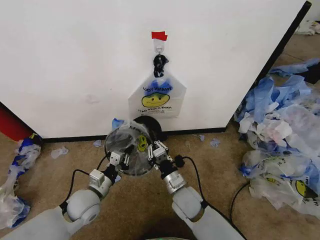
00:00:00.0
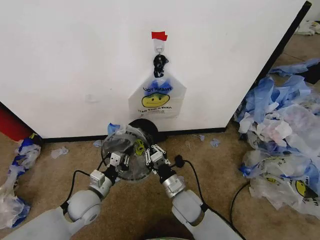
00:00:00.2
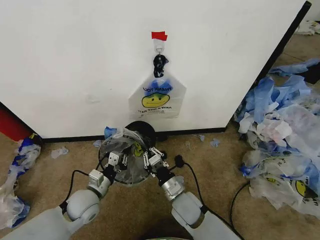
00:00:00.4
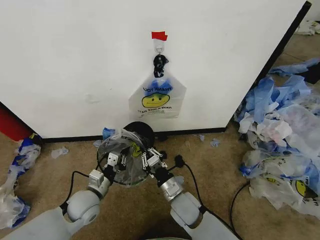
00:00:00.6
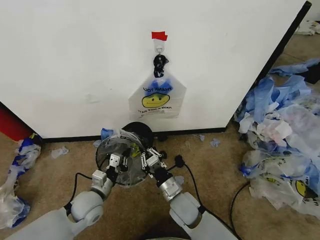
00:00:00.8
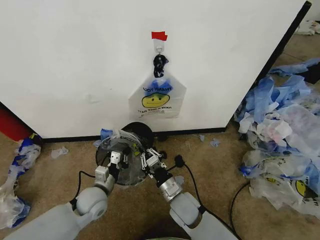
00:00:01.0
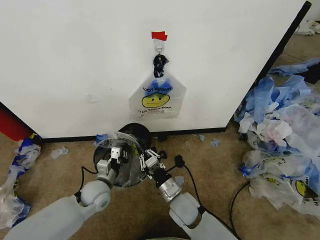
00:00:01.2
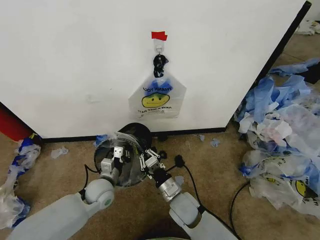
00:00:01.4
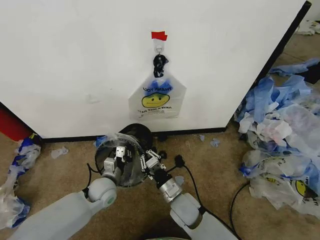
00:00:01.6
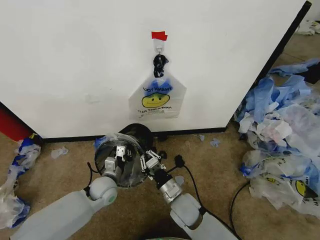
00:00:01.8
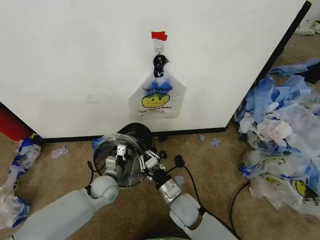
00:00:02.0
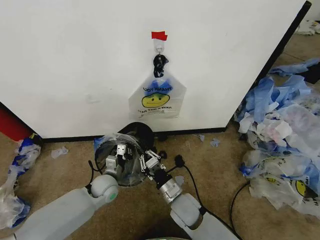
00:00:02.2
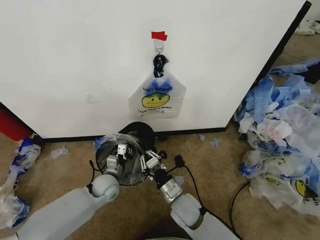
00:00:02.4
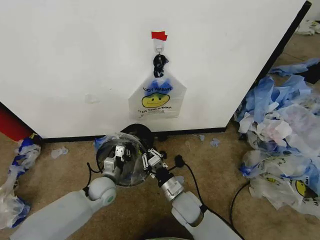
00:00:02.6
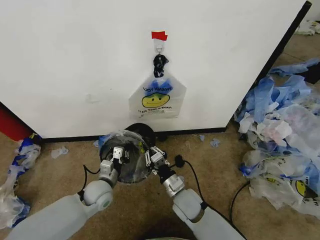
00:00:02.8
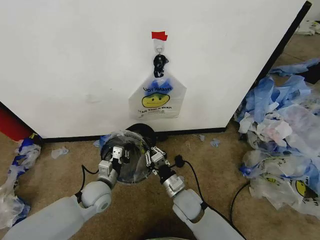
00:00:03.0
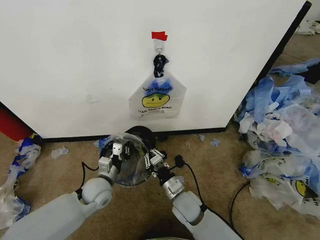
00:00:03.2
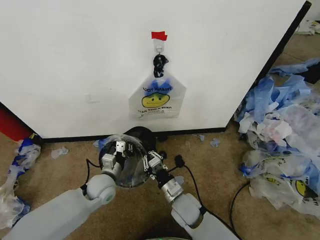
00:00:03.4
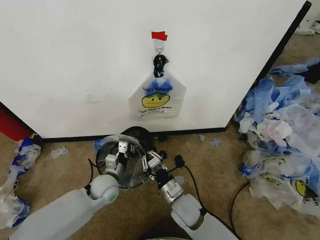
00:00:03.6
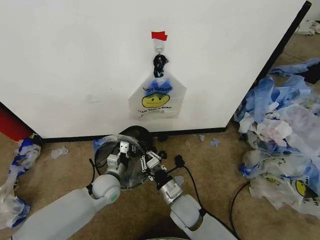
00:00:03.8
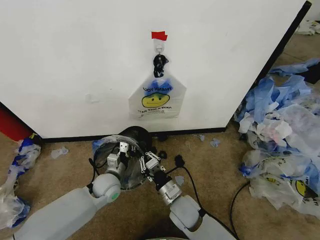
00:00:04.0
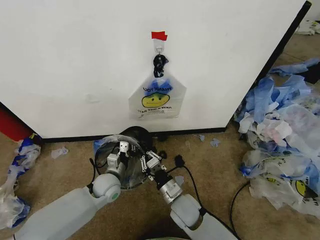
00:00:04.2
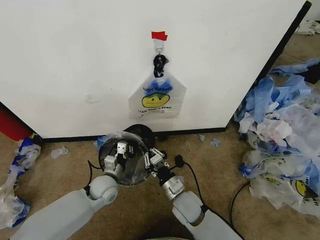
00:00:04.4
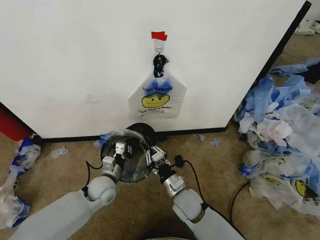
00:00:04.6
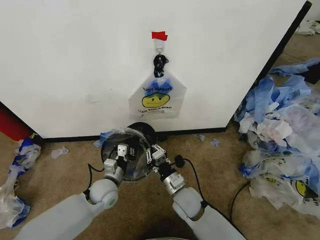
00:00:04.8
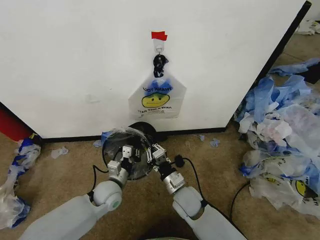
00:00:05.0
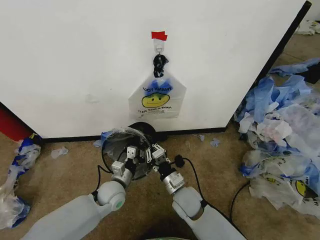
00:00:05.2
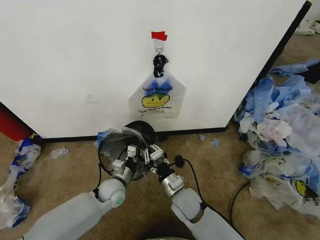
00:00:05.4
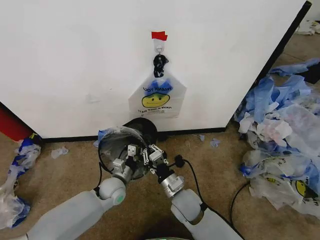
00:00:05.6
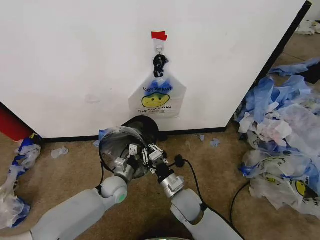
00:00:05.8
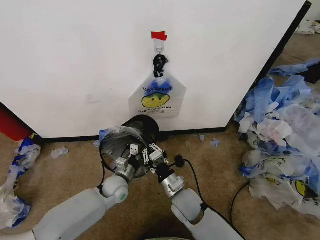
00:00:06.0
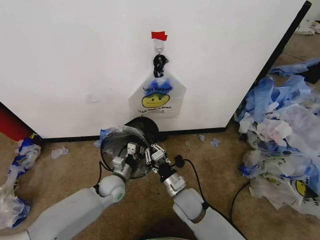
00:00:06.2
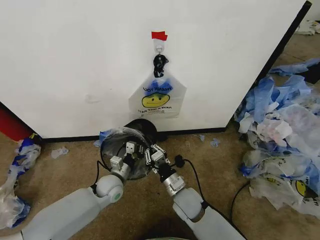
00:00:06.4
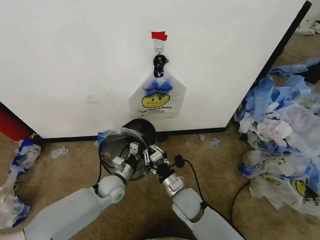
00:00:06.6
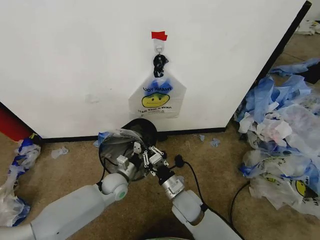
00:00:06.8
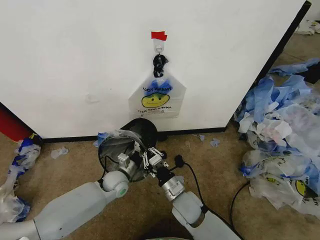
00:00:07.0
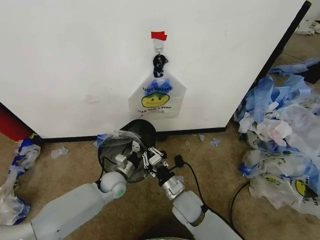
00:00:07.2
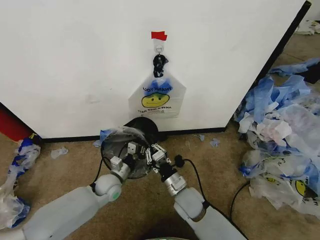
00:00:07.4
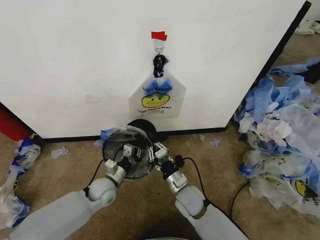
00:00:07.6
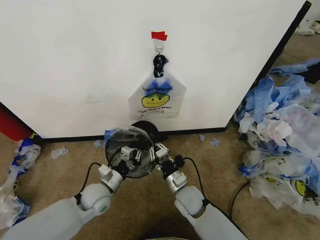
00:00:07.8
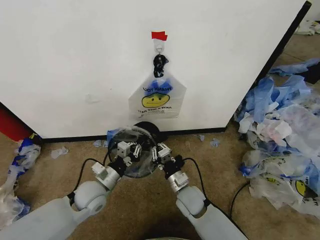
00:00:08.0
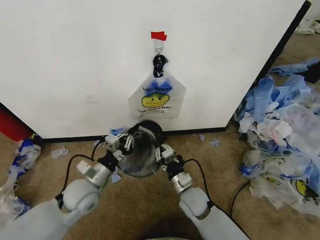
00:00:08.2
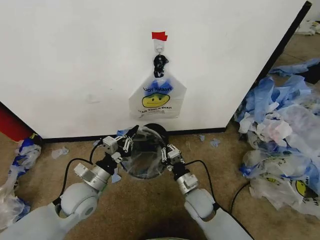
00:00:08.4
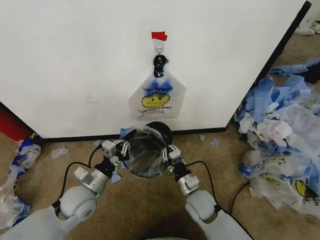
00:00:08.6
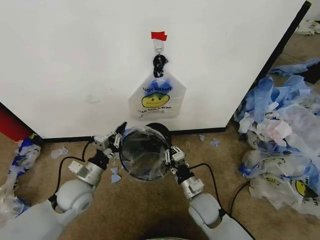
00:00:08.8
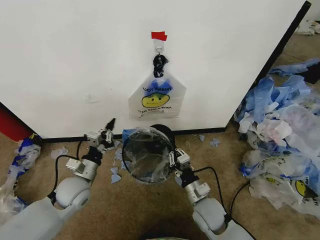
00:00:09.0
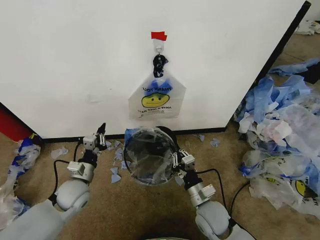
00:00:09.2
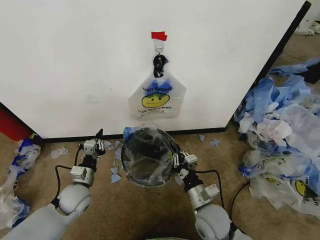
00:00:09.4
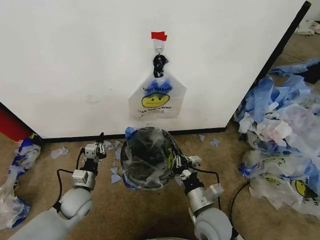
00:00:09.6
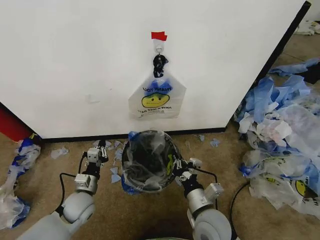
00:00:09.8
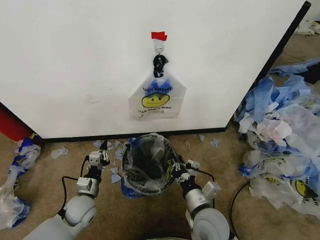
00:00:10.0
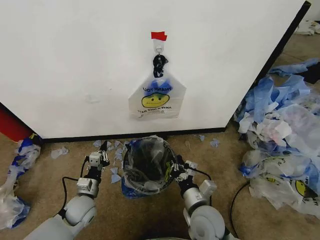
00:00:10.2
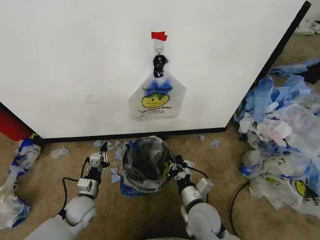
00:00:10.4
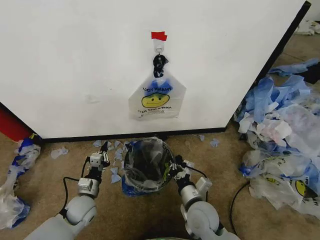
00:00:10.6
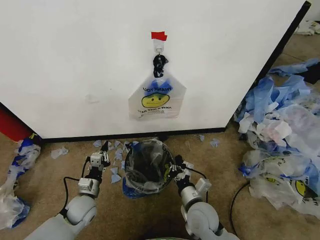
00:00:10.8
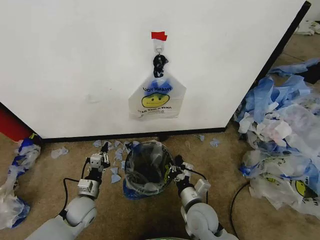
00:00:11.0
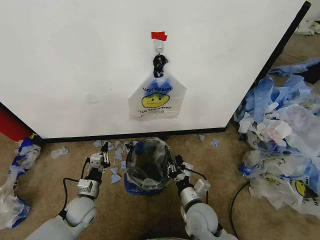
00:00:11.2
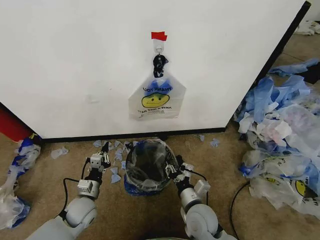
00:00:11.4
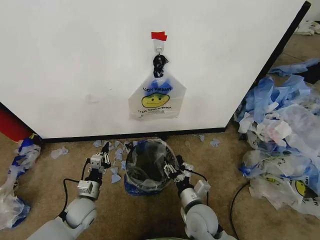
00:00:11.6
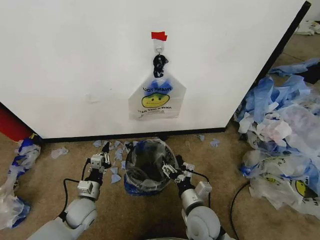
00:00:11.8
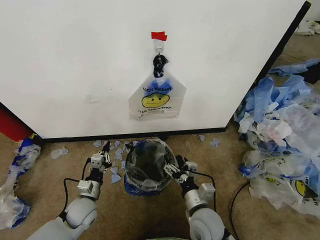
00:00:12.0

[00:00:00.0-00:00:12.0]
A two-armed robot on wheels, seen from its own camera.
Task of the whole recording: Pick up the garbage bag from the wall and place it over the trash bin.
00:00:00.0 to 00:00:01.6: The left gripper shifts about 5 cm forward.
00:00:01.6 to 00:00:06.0: The grippers move only a little.
00:00:06.0 to 00:00:07.6: The grippers move only a little.
00:00:07.6 to 00:00:09.0: The right gripper shifts some 5 cm to the right. Meanwhile the left gripper heads upward and to the left, covering about 10 cm.
00:00:09.0 to 00:00:10.4: The left gripper heads downward, covering about 10 cm.
00:00:10.4 to 00:00:12.0: The right gripper opens its fingers.

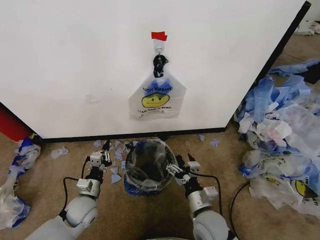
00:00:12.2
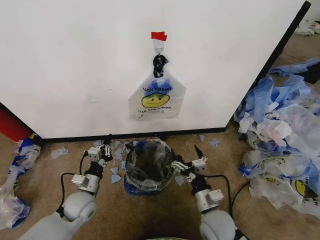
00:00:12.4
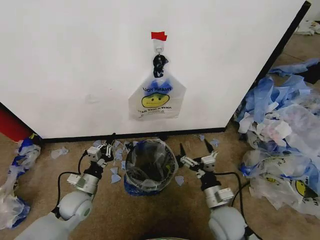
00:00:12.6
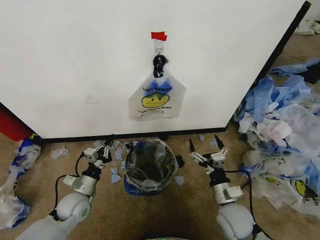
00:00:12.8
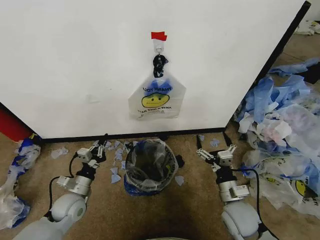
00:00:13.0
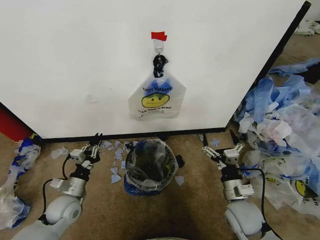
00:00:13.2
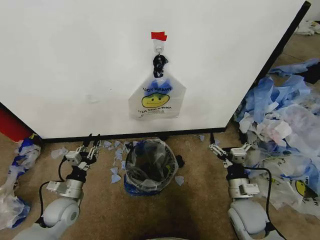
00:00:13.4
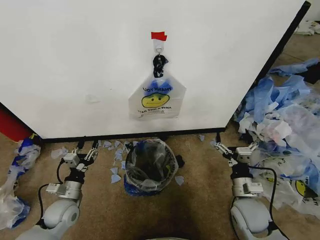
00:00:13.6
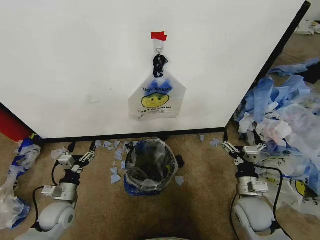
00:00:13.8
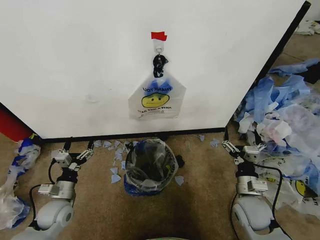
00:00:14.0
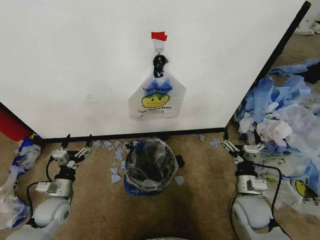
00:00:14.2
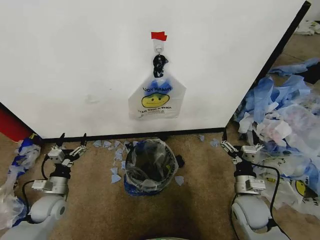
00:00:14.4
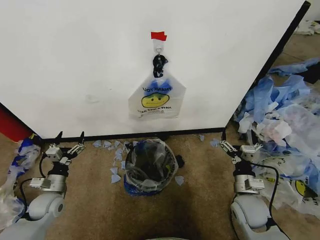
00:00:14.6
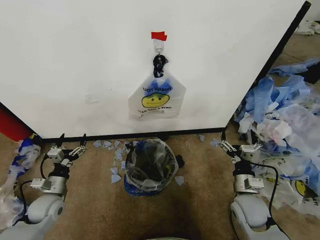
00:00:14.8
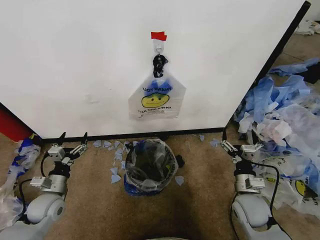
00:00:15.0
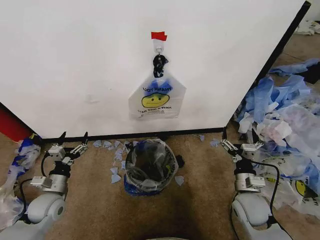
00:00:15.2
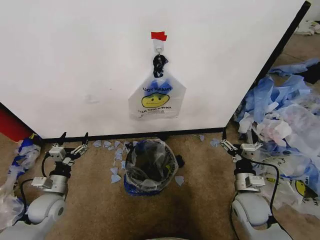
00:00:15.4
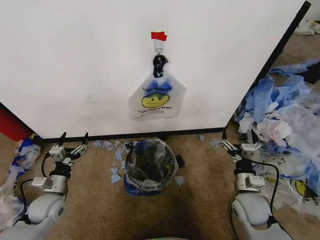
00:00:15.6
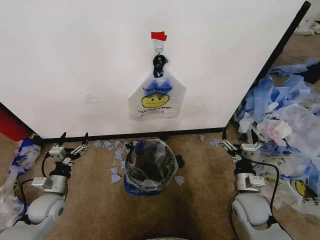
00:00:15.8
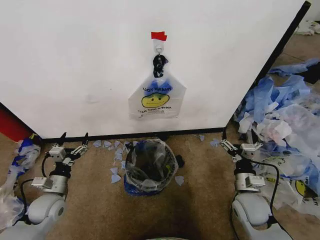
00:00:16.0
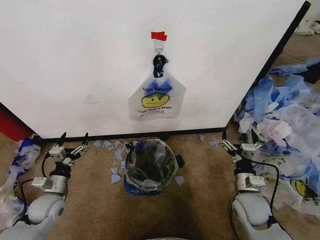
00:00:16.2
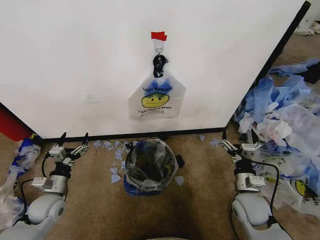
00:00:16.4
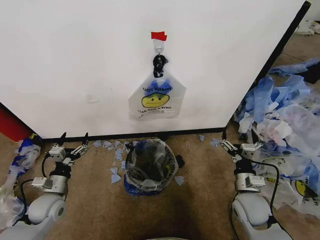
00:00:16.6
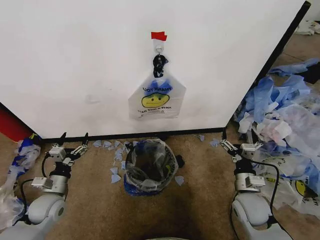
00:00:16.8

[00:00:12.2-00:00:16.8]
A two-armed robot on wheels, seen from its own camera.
Task of the whole recording: Pick up the garbage bag from the wall and place it over the trash bin.
00:00:12.2 to 00:00:13.8: The right gripper goes approximately 15 cm to the right; the left gripper goes some 5 cm to the left, and opens up.
00:00:13.8 to 00:00:15.2: The grippers stay close to where they were, moving slightly.
00:00:15.2 to 00:00:16.8: The two grippers keep their place.

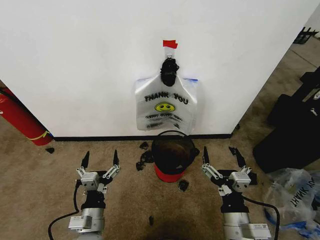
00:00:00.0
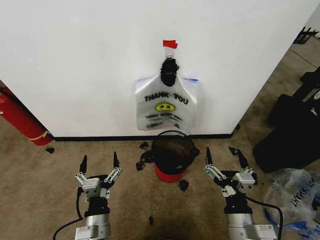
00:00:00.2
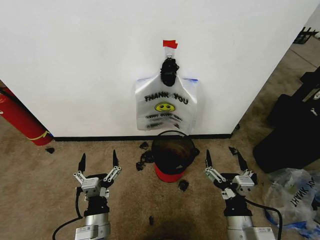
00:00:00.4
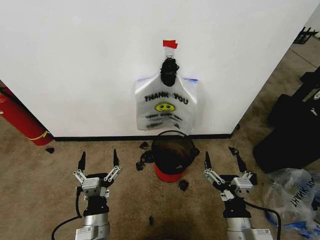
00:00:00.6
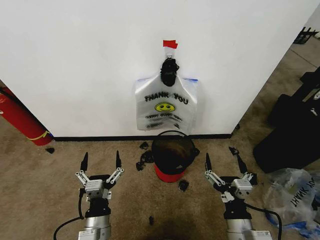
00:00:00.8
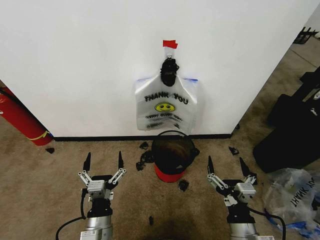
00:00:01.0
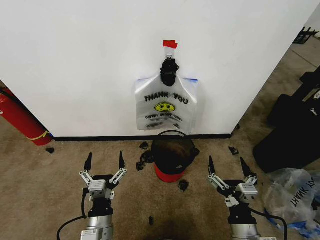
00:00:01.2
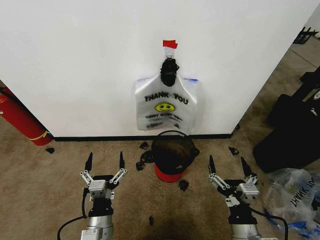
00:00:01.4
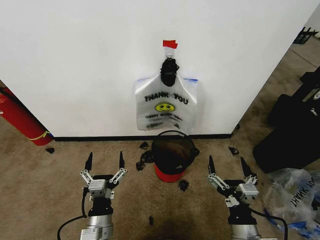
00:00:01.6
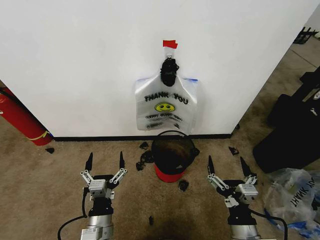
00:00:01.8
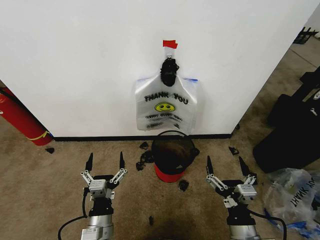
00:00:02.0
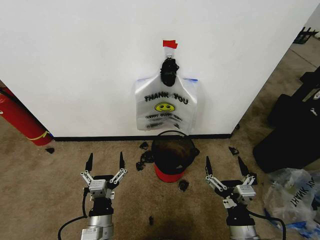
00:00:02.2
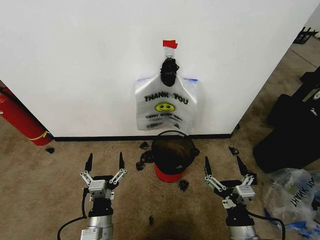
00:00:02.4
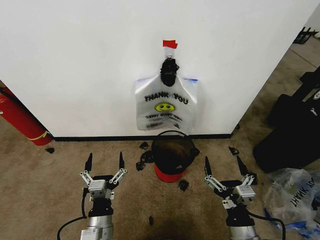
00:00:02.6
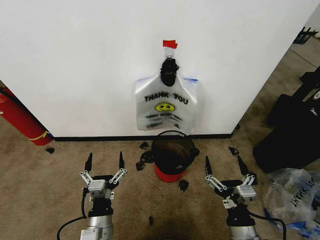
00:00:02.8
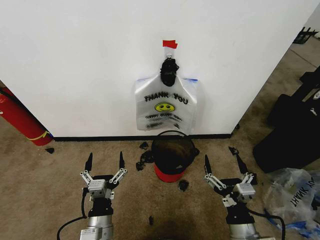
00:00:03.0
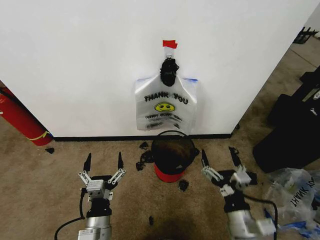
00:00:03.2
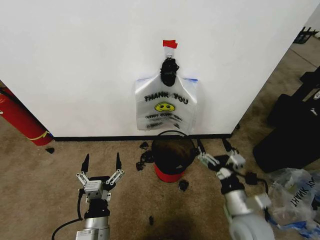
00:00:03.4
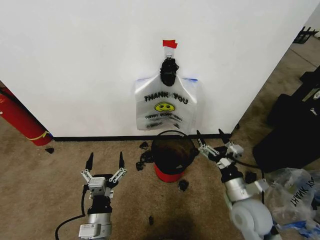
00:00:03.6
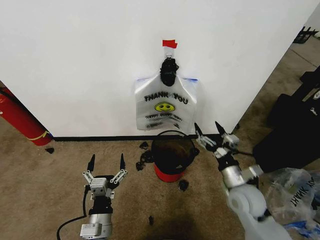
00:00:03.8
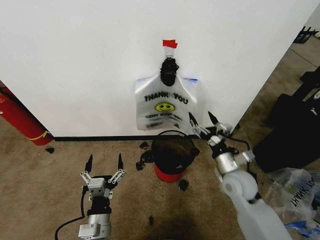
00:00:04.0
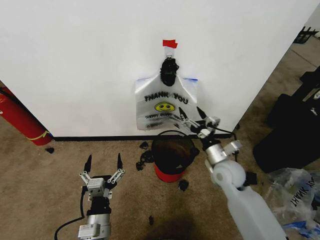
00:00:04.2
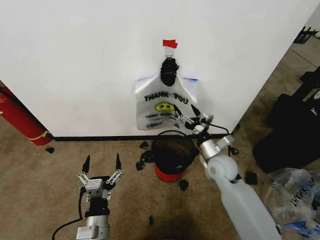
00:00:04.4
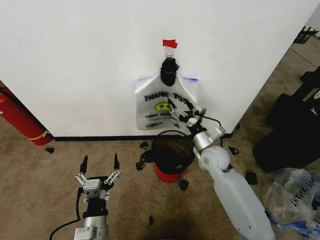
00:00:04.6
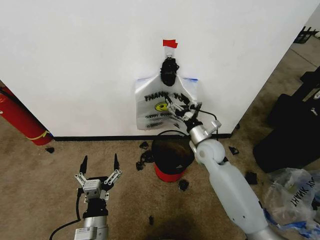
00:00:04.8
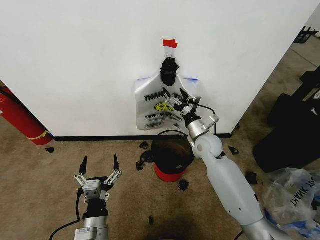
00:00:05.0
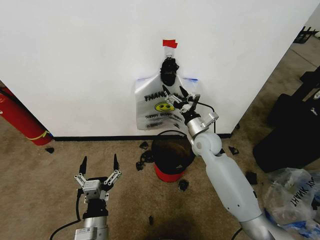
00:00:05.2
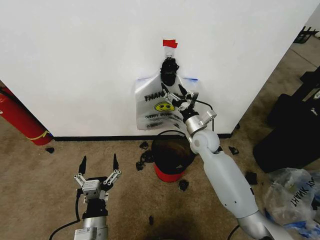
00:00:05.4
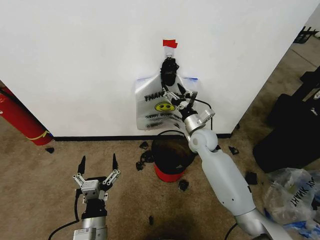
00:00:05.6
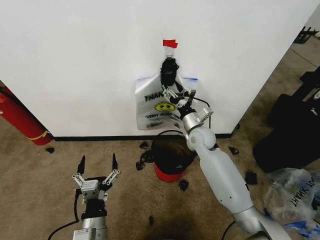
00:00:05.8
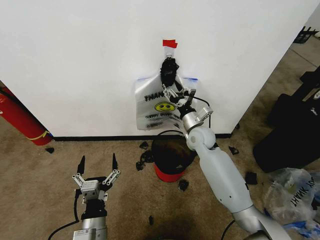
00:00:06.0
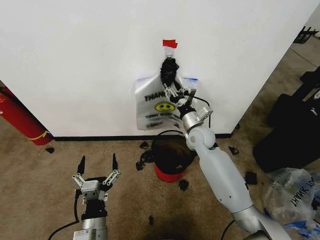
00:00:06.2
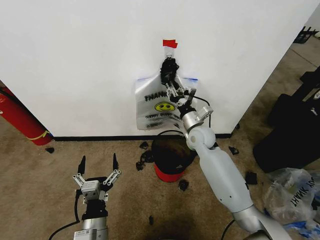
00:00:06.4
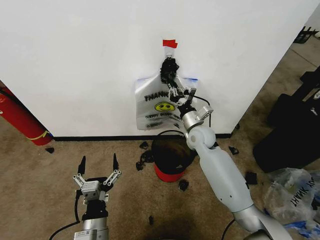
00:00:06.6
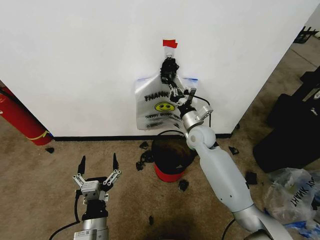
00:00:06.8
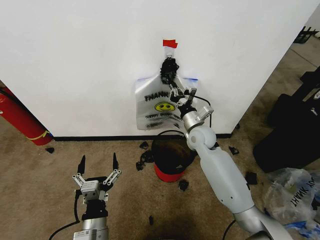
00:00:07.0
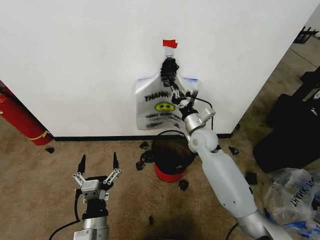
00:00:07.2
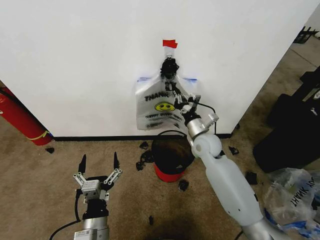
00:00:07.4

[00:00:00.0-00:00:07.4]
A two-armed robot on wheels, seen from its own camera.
Task of the whole recording: Pick up the garbage bag from the wall and place it over the trash bin.
00:00:01.4 to 00:00:03.0: Neither gripper changes place.
00:00:03.0 to 00:00:04.4: The right gripper moves forward, roughly 25 cm.
00:00:04.4 to 00:00:06.0: The right gripper is displaced forward and to the left by approximately 10 cm.
00:00:06.0 to 00:00:07.4: The right gripper closes.
